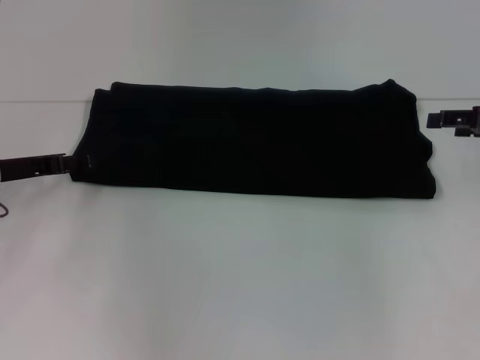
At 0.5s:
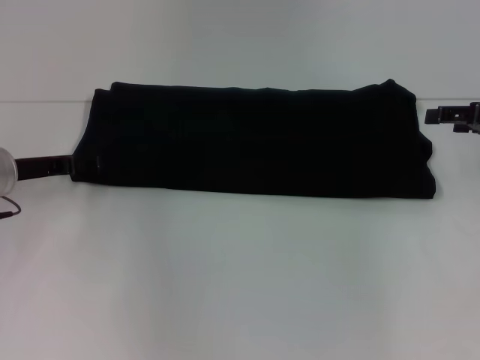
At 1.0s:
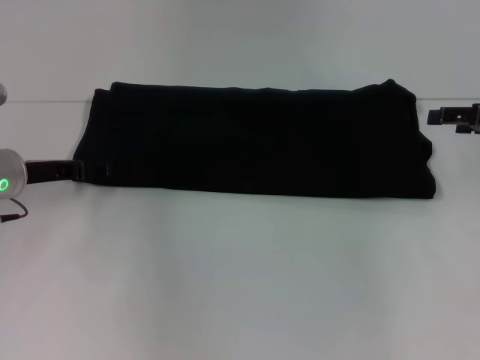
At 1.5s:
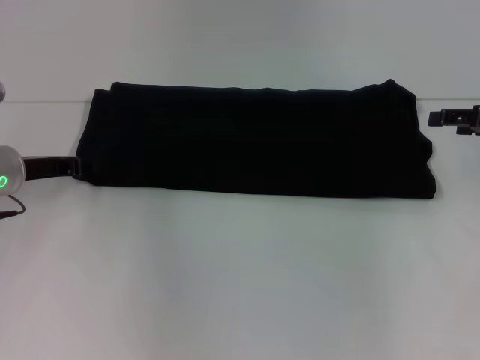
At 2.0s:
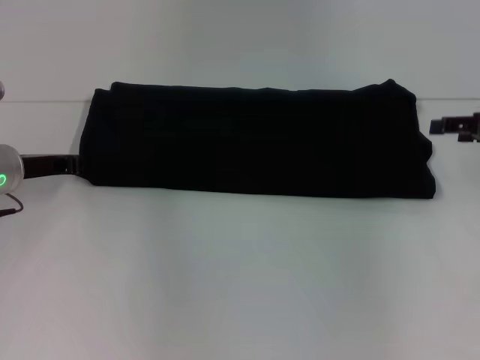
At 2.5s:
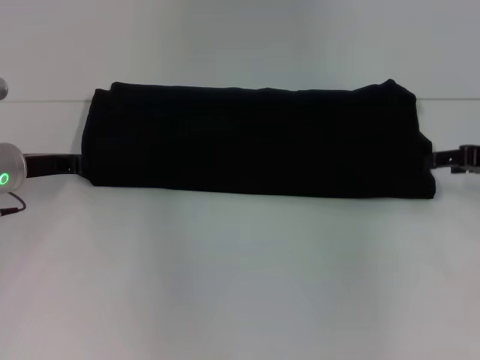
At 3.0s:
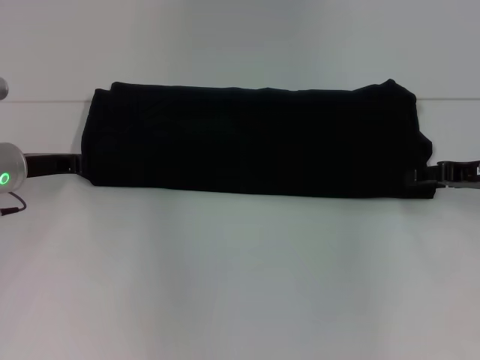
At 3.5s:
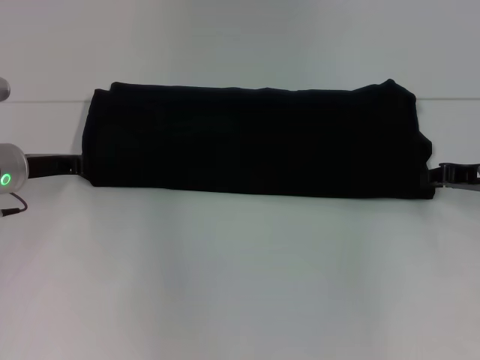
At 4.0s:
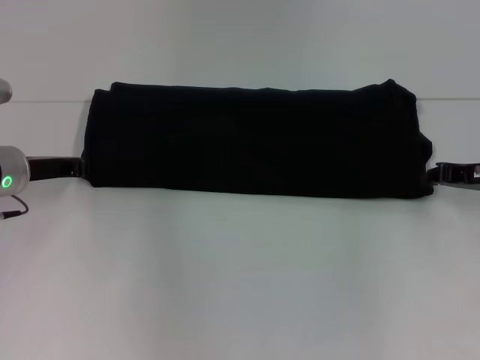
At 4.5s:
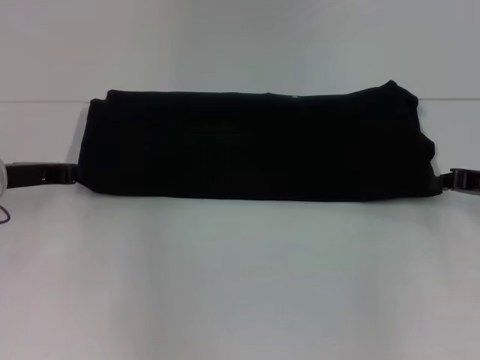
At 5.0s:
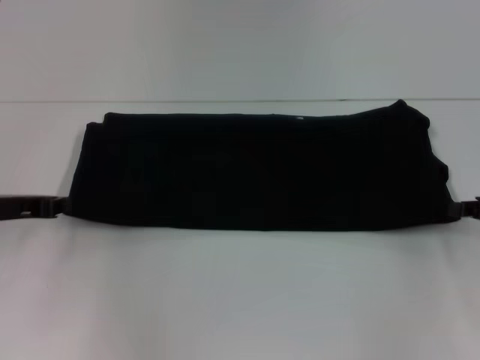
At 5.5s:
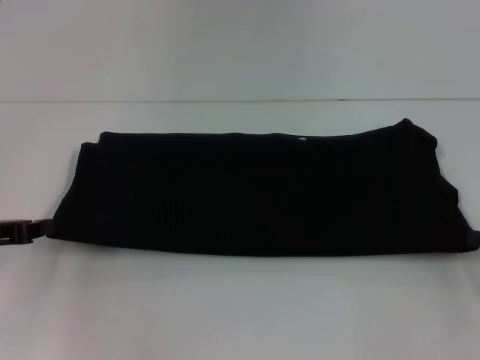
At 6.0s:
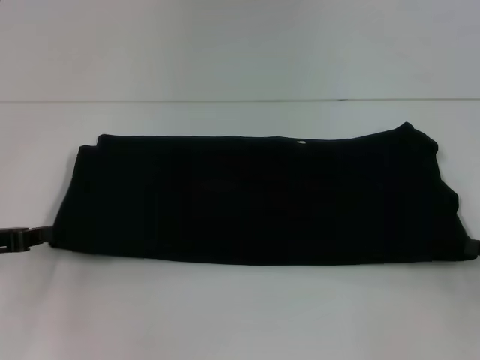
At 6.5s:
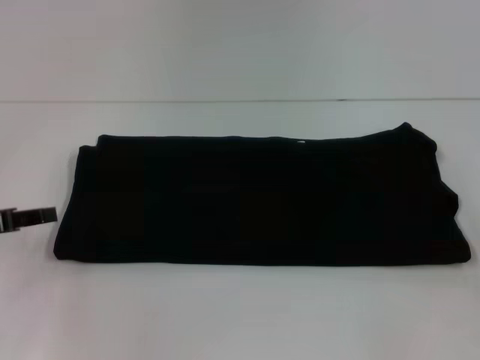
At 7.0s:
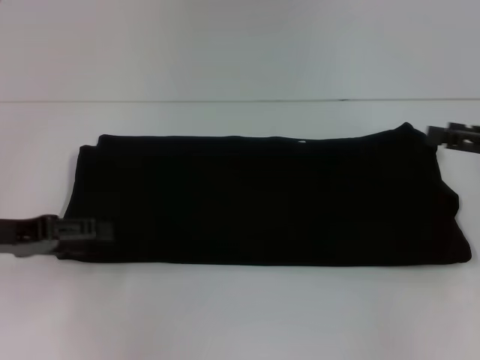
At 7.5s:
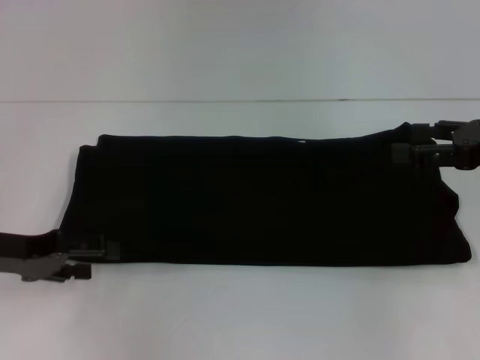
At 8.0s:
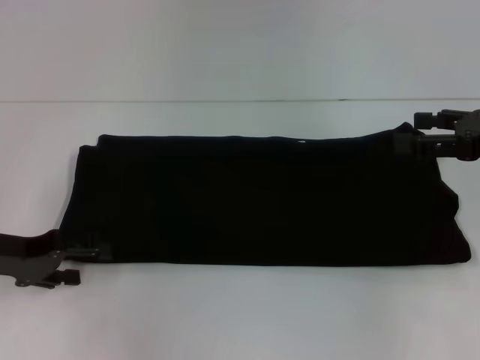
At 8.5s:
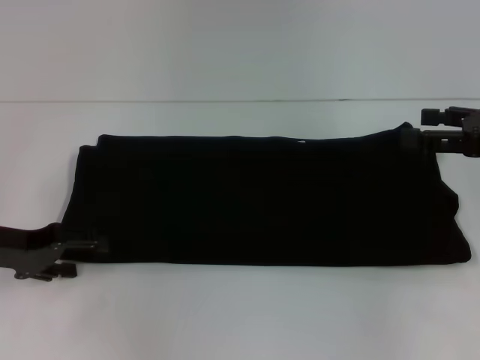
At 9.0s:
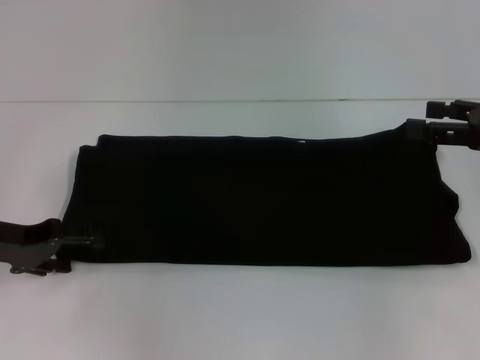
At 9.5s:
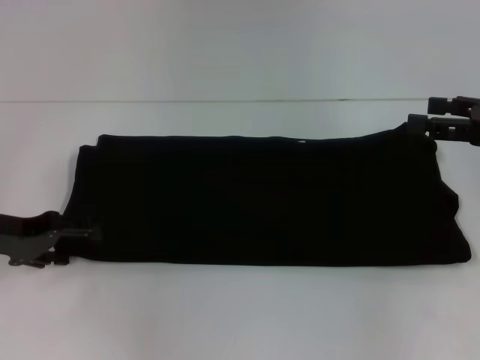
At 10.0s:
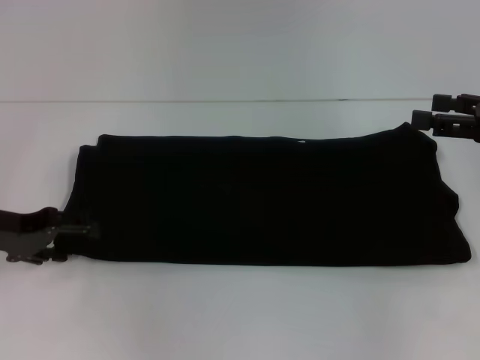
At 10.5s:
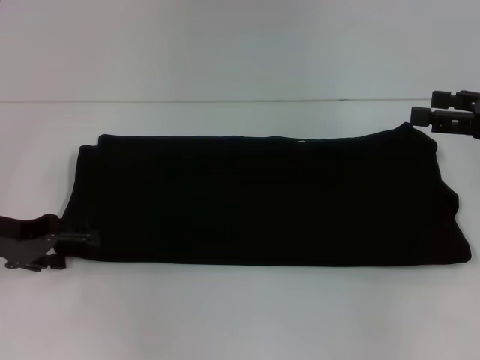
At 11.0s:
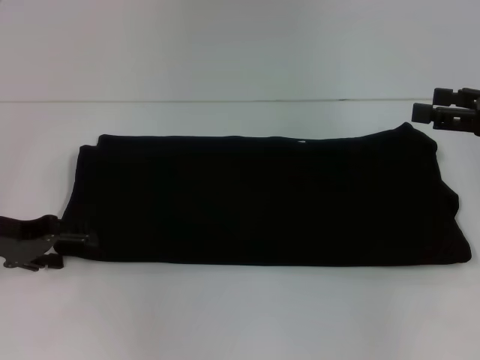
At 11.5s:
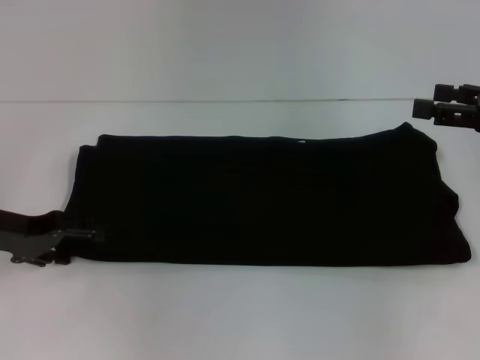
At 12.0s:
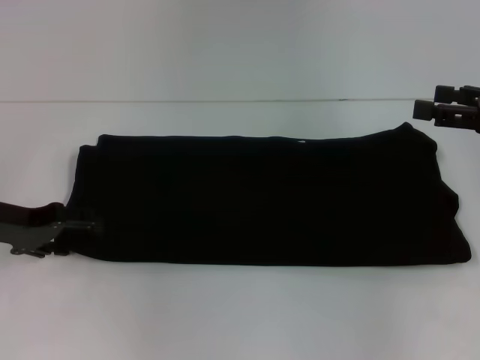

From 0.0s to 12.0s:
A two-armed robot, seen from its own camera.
From 0.0s to 2.0s: The left gripper closes up.
From 2.0s to 4.0s: The right gripper moves downward, some 5 cm, and closes.
From 4.0s to 6.0s: The right gripper is displaced backward and to the right by approximately 15 cm; the left gripper moves backward and to the left, about 10 cm.
From 6.0s to 8.0s: The left gripper opens its fingers; the right gripper travels upward, forward and to the left by approximately 15 cm, and opens up.
From 8.0s to 10.0s: The grippers stay close to where they were, moving slightly.
From 10.0s to 12.0s: Both grippers stay put.

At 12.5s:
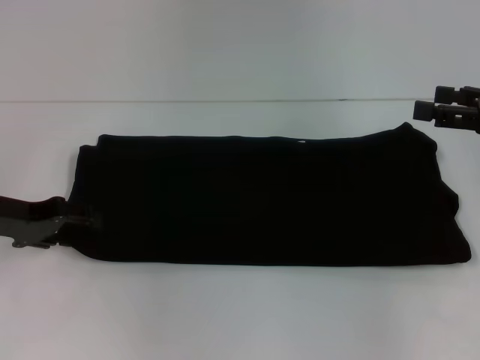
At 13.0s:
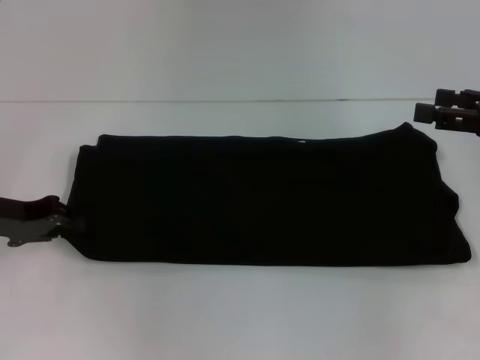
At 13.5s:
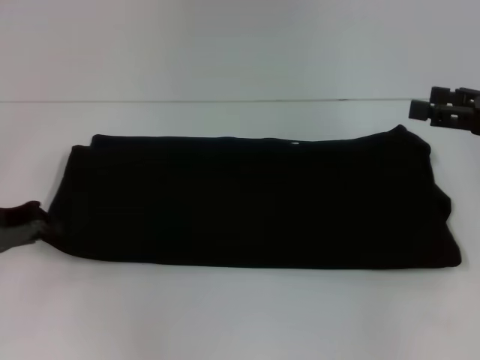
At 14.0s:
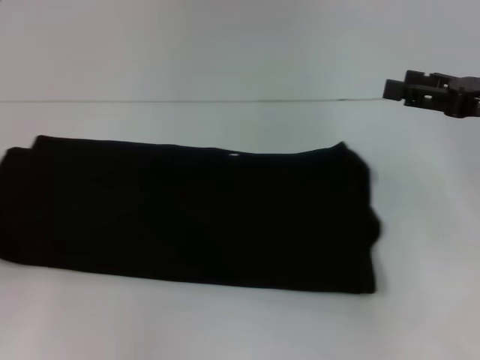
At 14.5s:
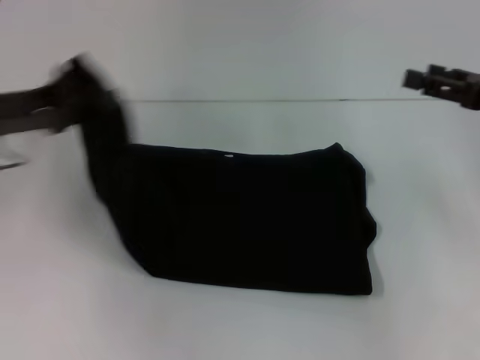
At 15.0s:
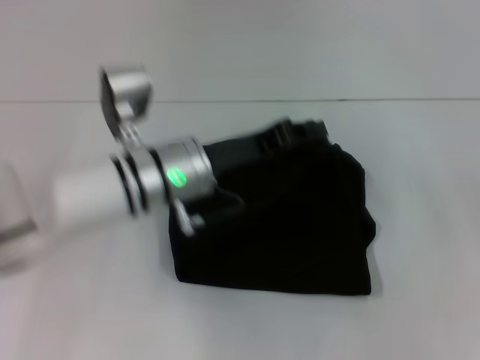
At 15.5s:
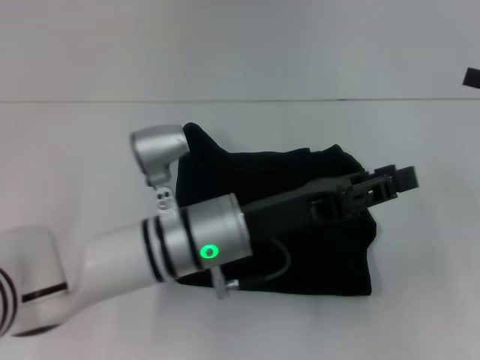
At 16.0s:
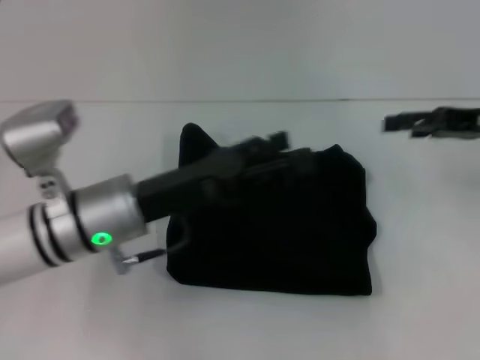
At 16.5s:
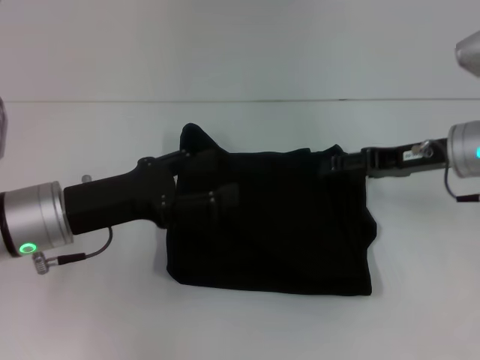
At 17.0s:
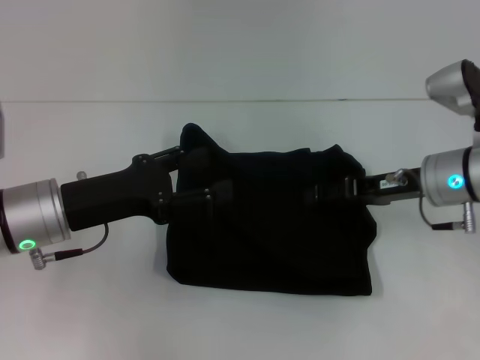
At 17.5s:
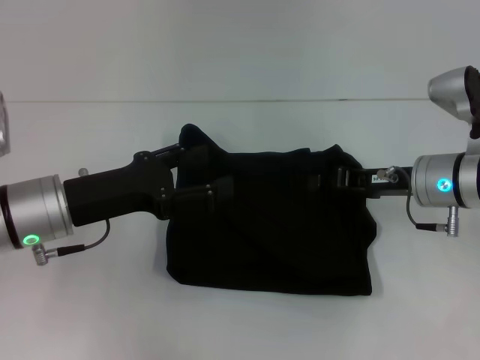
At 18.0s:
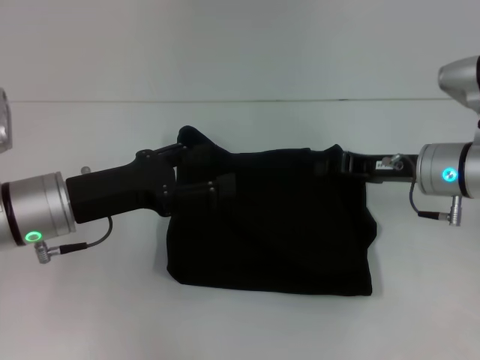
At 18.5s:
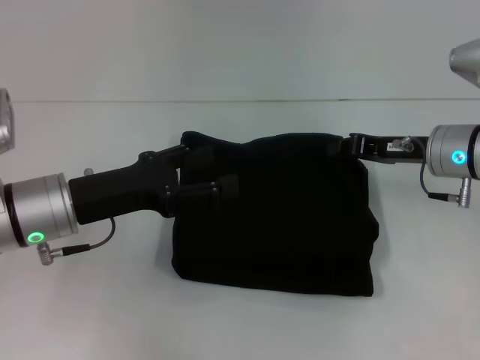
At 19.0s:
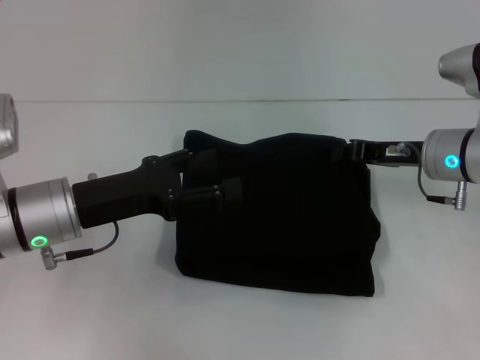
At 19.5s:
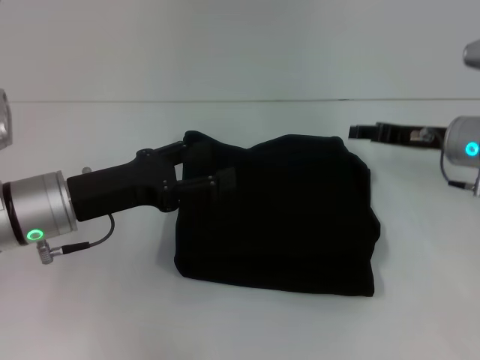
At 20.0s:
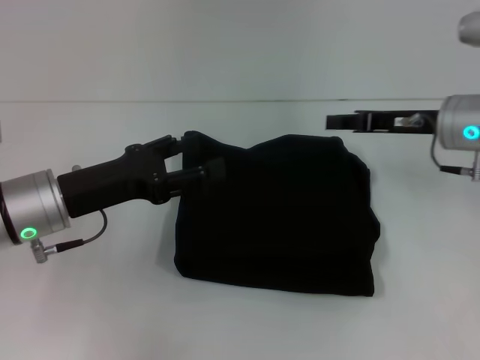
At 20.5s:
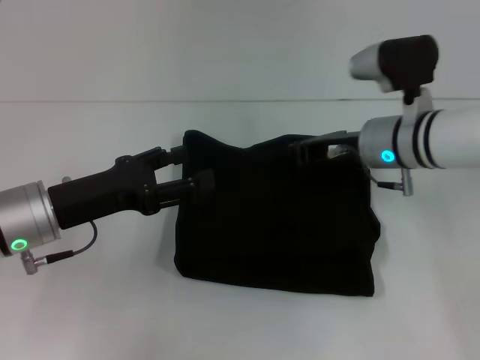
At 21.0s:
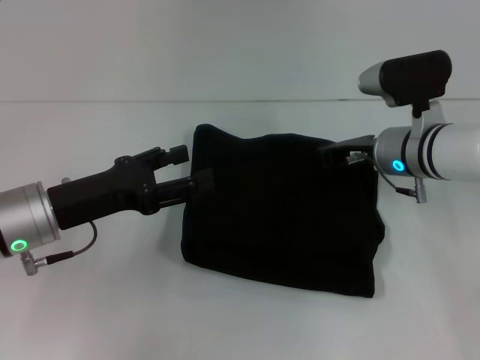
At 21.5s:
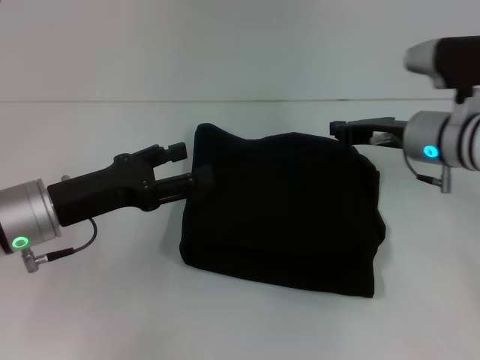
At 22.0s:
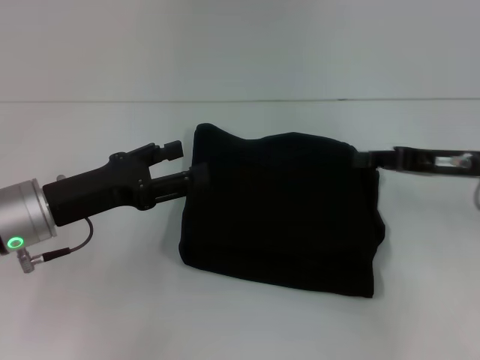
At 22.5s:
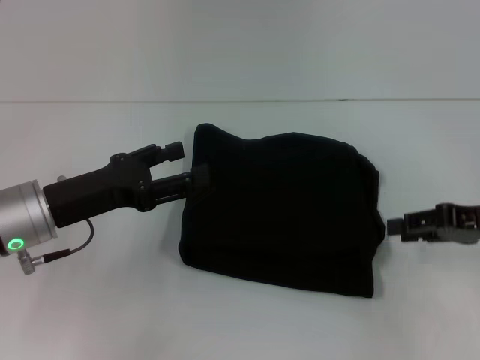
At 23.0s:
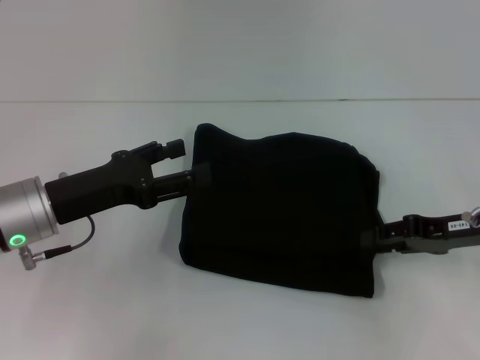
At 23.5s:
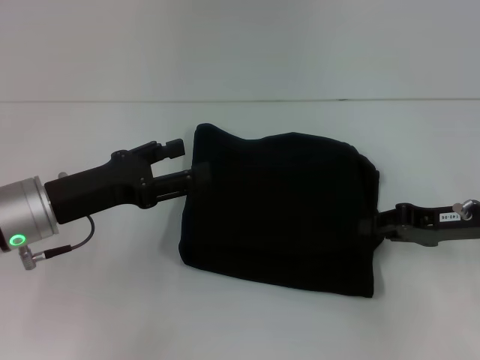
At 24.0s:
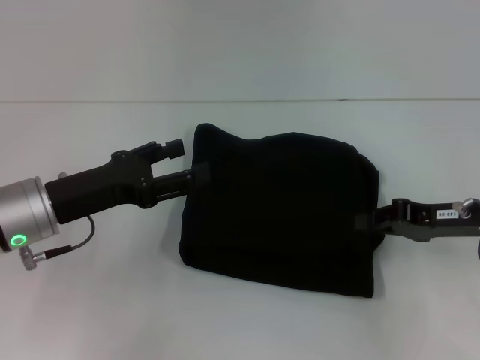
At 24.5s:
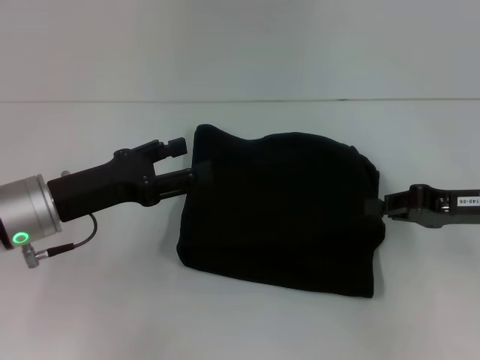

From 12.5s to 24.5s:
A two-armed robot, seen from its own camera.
Step, from 12.5s to 15.5s: Fold the clothes with your left hand.
From 12.5s to 14.5s: The left gripper moves upward, roughly 5 cm, reaches roughly 10 cm to the left, then returns, and closes.
From 14.5s to 16.5s: The left gripper shifts about 10 cm downward and backward, reaches some 25 cm to the right, then returns, and opens. The right gripper heads to the left, covering roughly 10 cm.
From 16.5s to 18.5s: The right gripper closes up.
From 18.5s to 20.5s: The right gripper is displaced to the left by some 5 cm, and opens and closes again.
From 20.5s to 22.5s: The right gripper shifts about 20 cm to the right and backward, and opens.
From 22.5s to 24.5s: The right gripper closes.

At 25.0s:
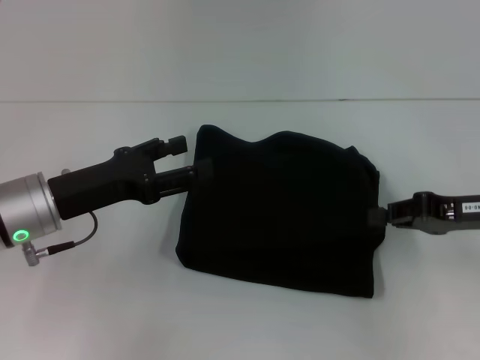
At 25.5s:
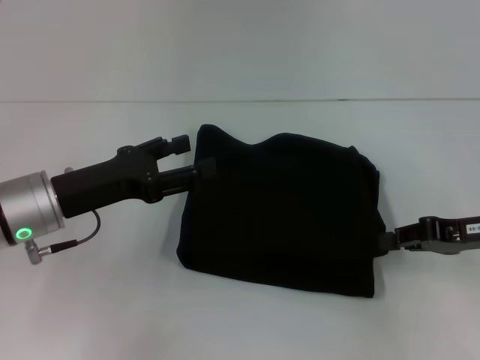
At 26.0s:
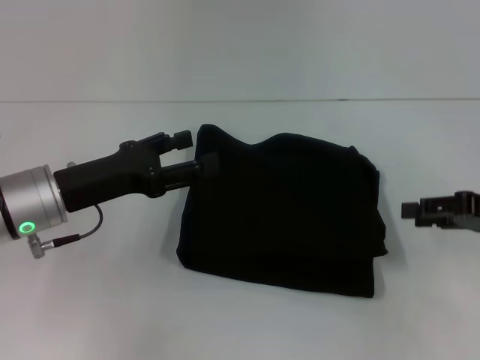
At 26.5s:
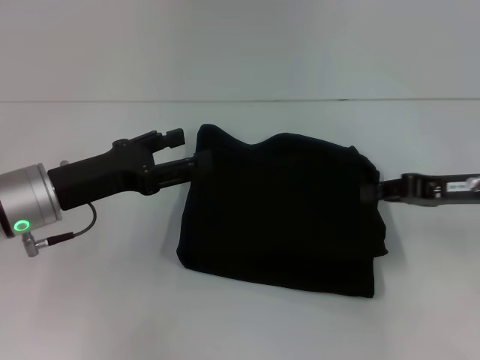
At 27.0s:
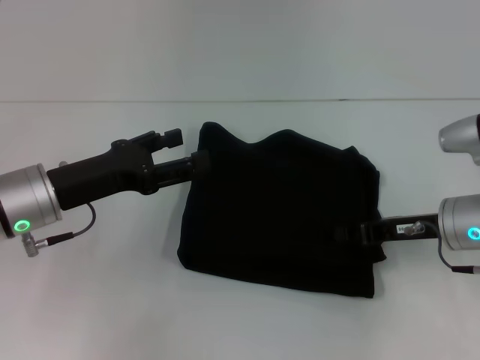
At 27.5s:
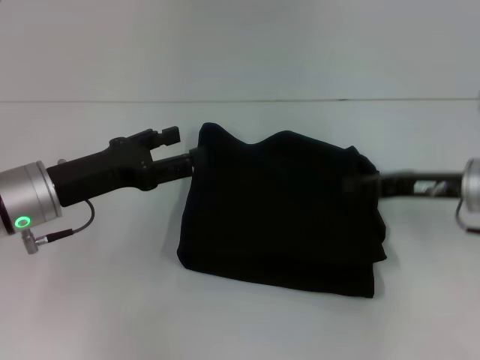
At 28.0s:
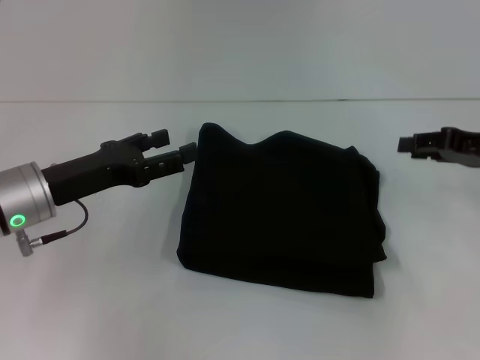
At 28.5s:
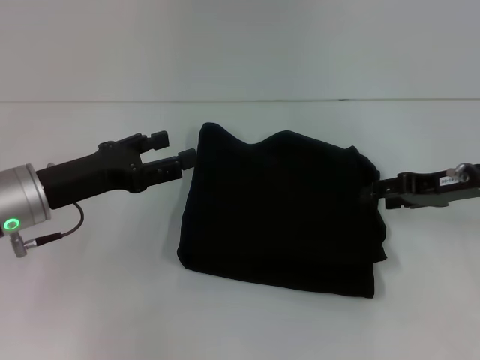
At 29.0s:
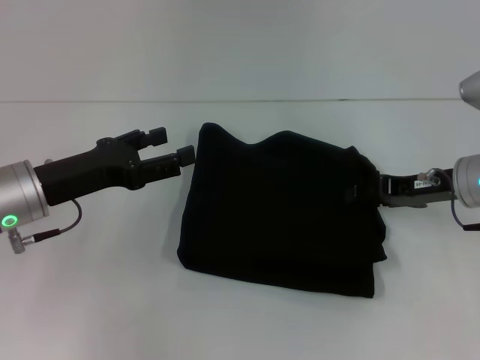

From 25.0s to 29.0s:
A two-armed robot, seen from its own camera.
From 25.0s to 27.0s: The right gripper heads to the left, covering roughly 5 cm, and opens and closes again.
From 27.0s to 29.0s: The right gripper reaches about 10 cm to the right, then returns, and opens its fingers.
